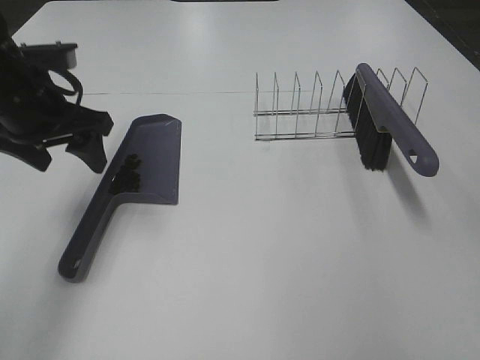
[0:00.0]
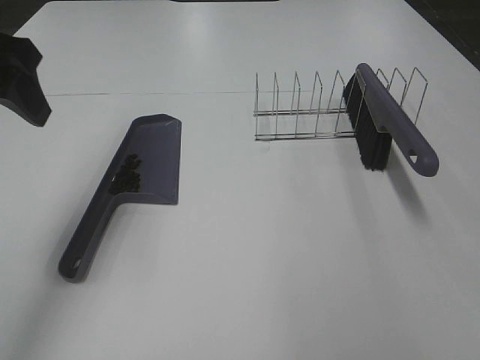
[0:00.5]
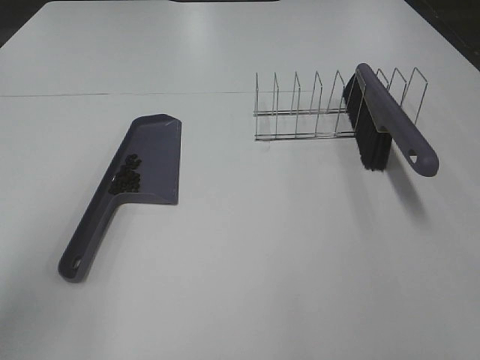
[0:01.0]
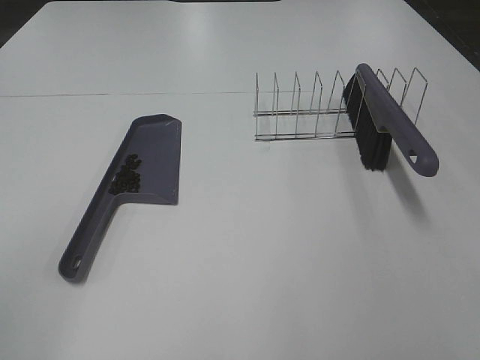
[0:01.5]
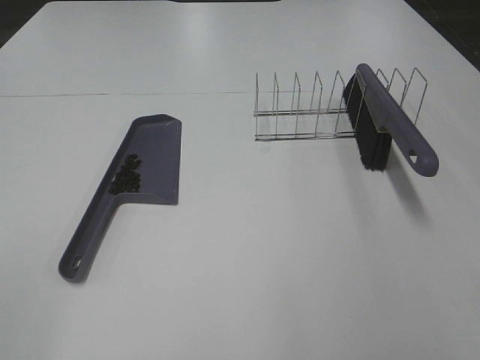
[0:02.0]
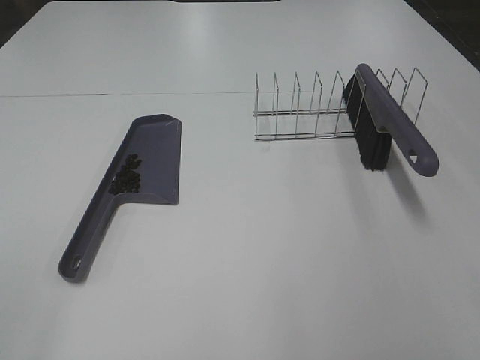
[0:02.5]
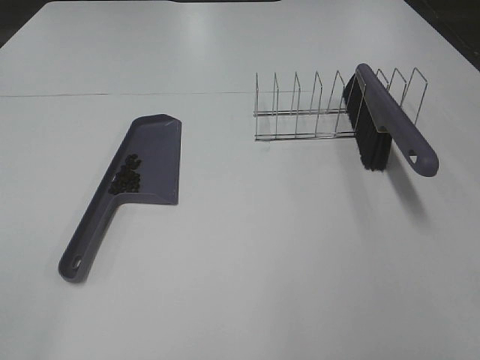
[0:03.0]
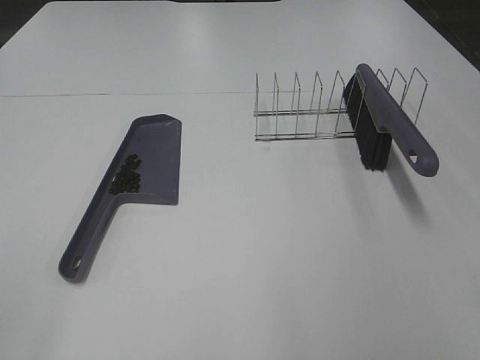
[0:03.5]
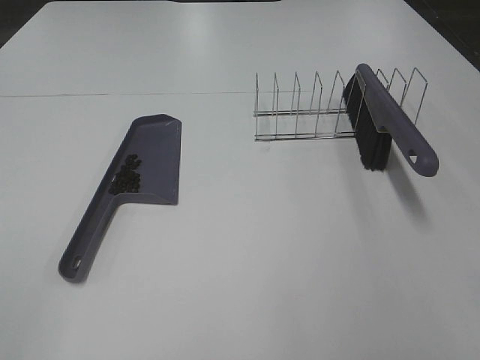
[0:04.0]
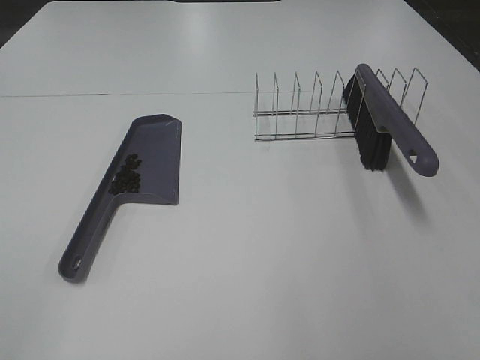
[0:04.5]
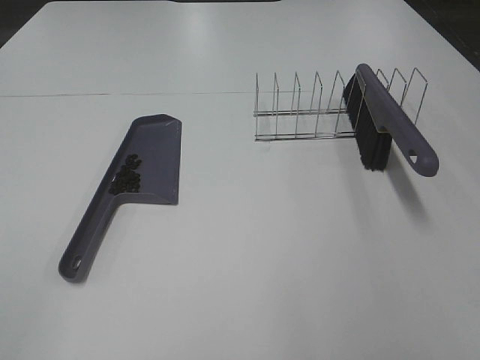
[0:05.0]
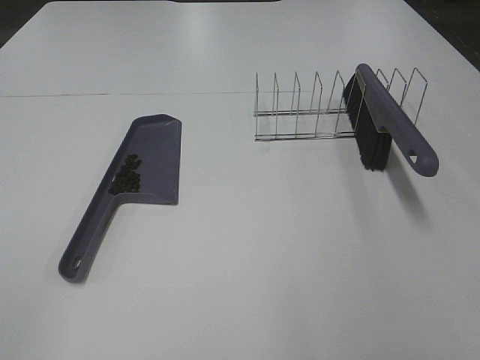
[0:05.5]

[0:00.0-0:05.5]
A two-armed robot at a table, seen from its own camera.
Task of the whole recording: Sweep Coffee Bean.
0:00.0 to 0:02.0: The left gripper goes some 35 cm backward.
